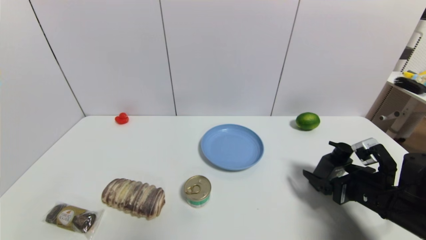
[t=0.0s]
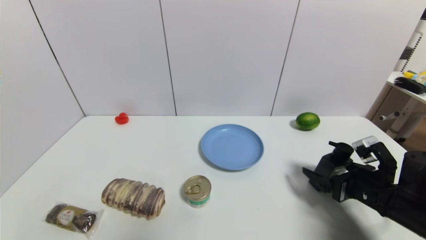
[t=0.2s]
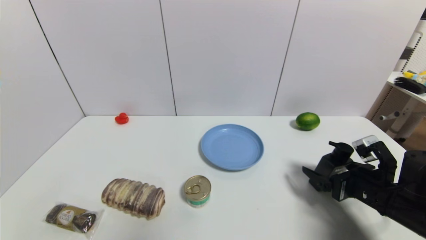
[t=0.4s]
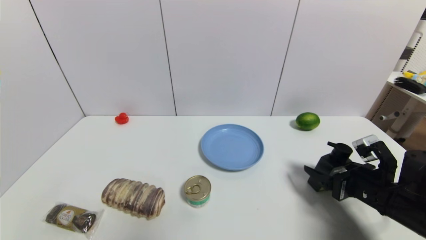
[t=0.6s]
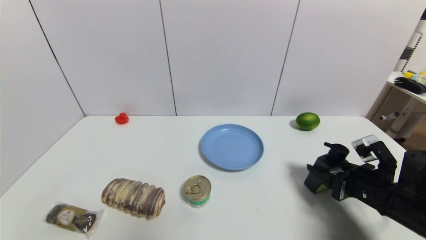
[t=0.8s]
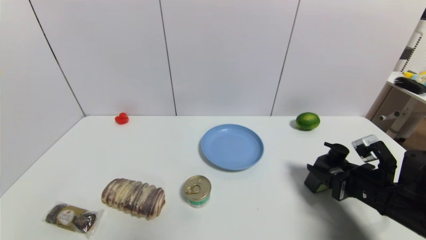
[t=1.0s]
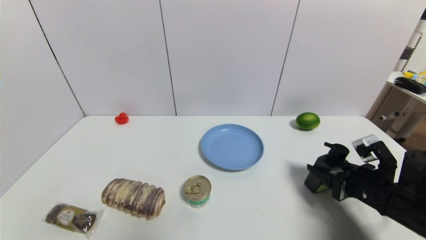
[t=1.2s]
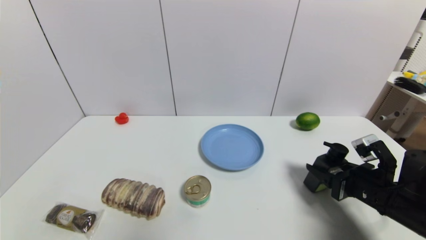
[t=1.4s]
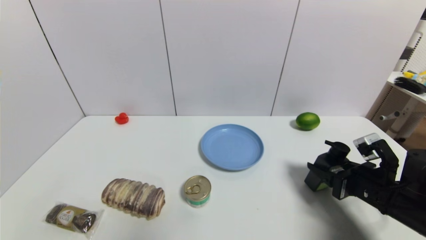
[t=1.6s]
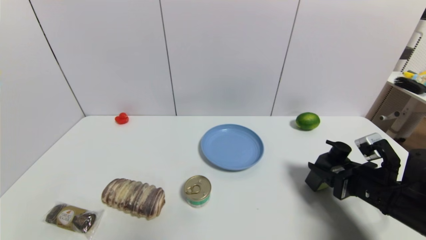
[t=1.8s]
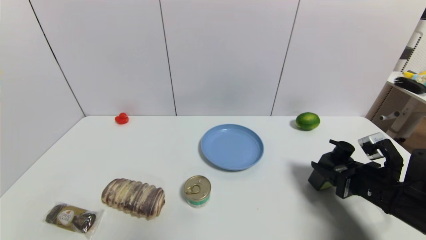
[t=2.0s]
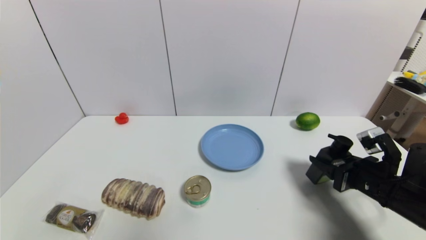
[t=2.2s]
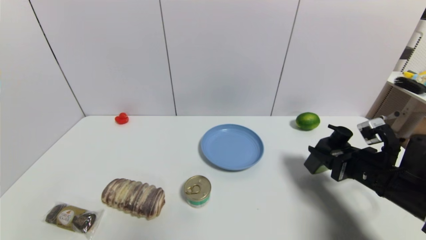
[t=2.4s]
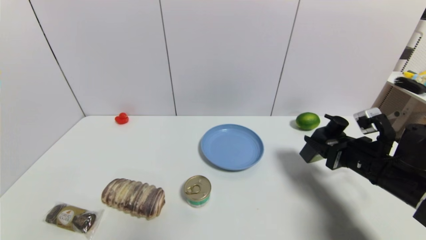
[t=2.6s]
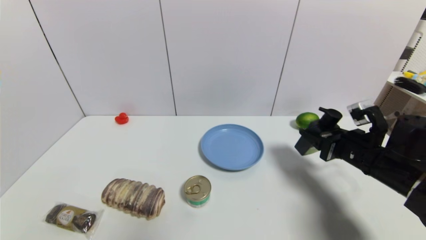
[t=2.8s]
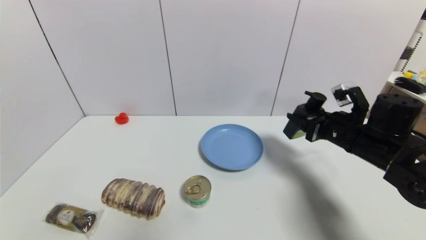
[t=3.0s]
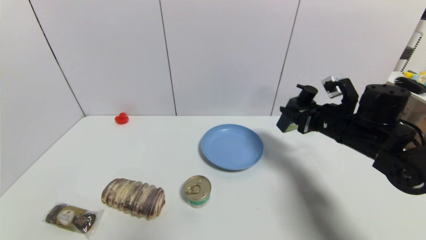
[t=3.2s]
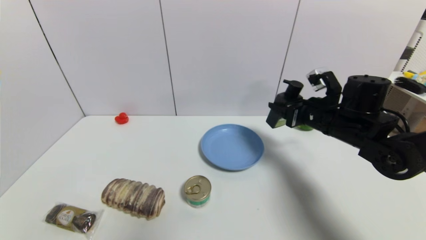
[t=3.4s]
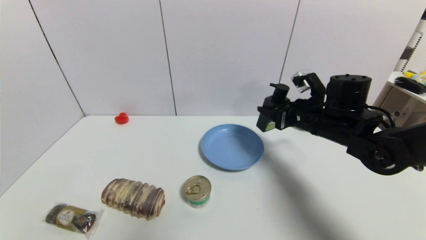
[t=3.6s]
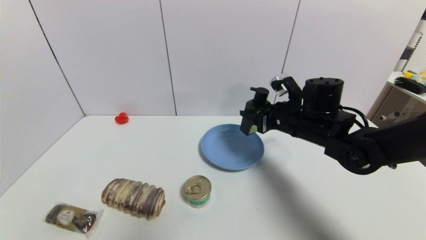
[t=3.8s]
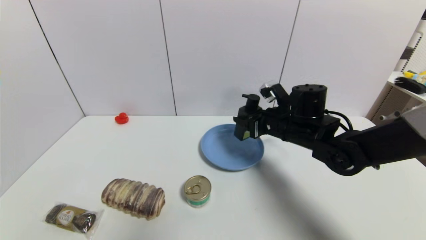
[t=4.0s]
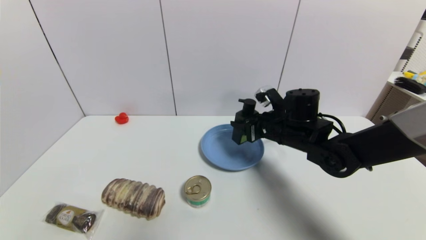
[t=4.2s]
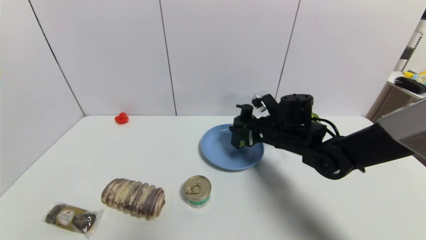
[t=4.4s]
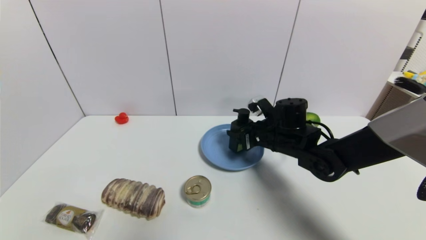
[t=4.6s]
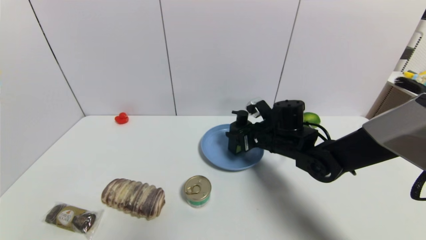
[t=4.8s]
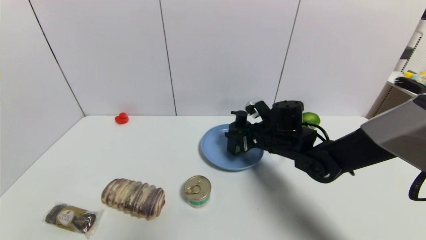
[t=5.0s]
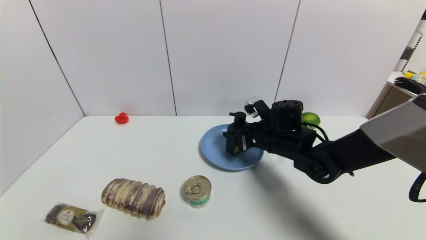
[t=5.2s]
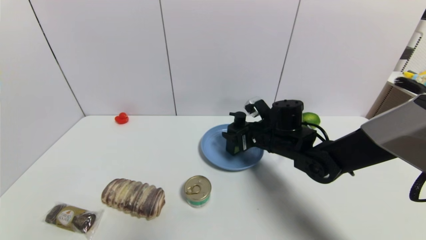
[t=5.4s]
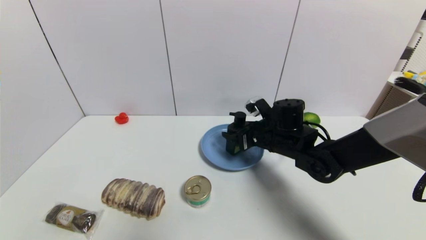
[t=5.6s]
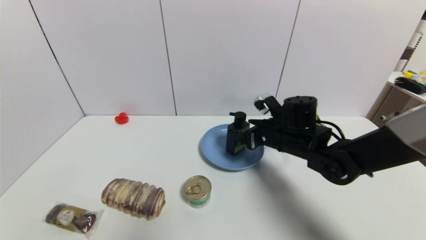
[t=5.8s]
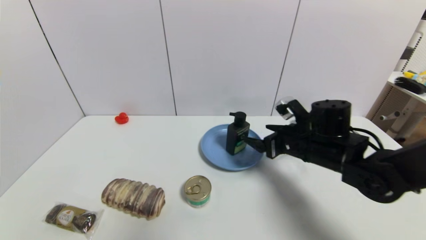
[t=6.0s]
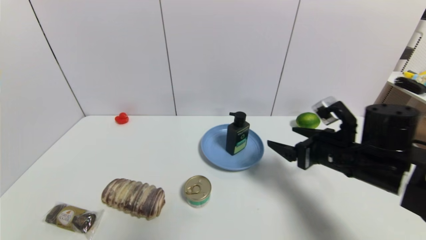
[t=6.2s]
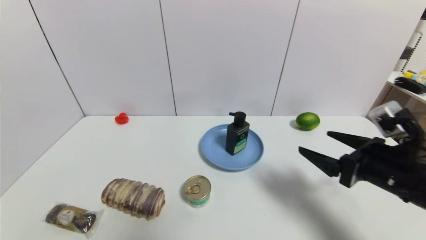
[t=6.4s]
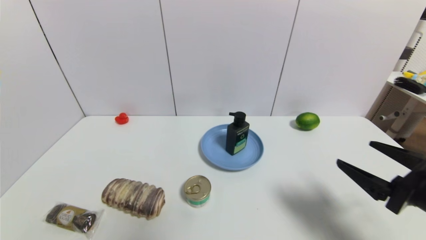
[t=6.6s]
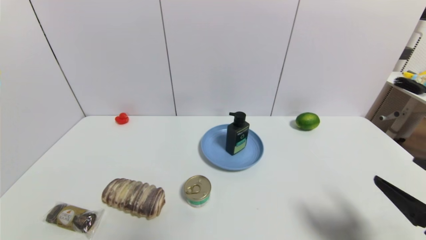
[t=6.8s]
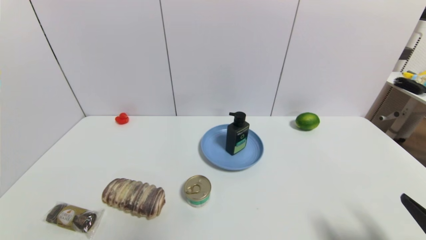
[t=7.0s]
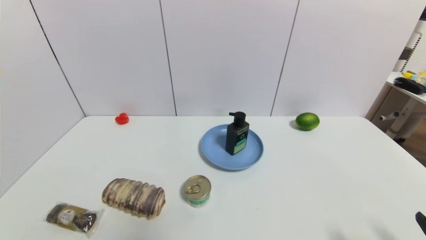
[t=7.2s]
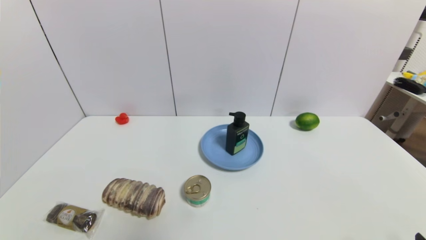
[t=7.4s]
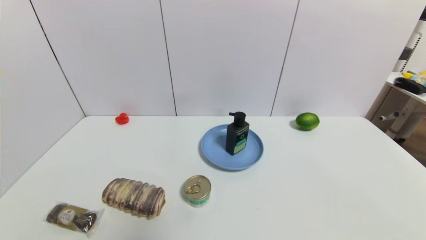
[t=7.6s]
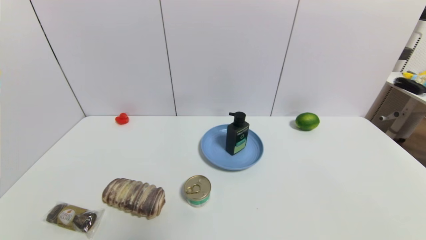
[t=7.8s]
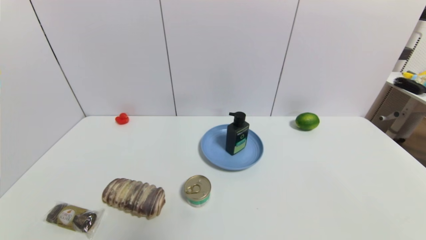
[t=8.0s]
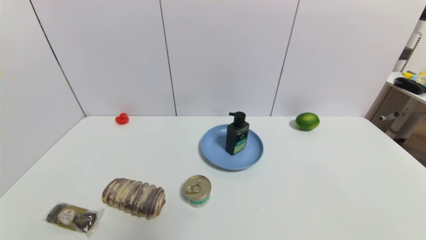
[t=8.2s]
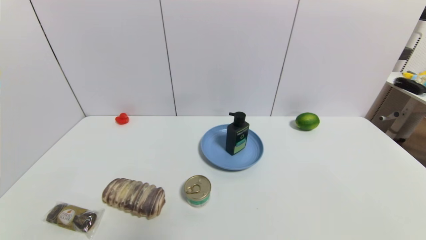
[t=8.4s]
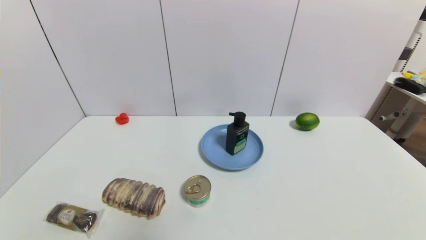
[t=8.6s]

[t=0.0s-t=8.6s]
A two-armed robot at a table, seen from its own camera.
Task of the whole recording: use a gripper to pick the target object and place on the blue plate.
Step, t=1.0s to t=5.6s: Place the hard facial cleanser on the blue plate with the right gripper.
t=0.0s to t=1.4s: The right gripper closes.
t=1.4s to t=2.8s: The right gripper heads forward, covering about 5 cm.
t=2.8s to t=4.4s: The right gripper is displaced to the left and forward by approximately 15 cm.
t=4.4s to t=5.8s: The right gripper opens its fingers.
t=5.8s to t=7.2s: The right gripper travels backward and to the right by about 35 cm.
